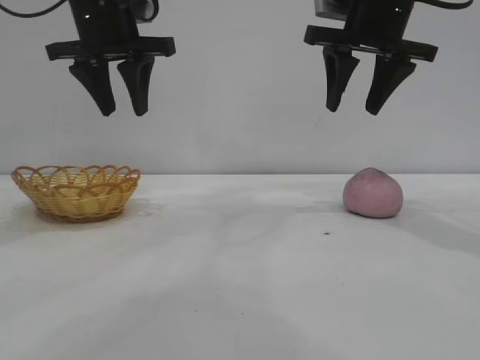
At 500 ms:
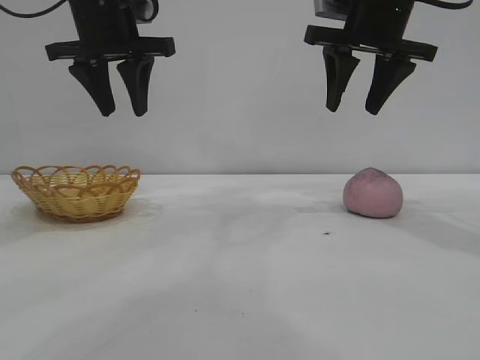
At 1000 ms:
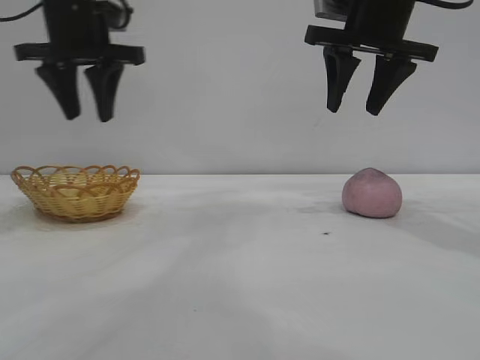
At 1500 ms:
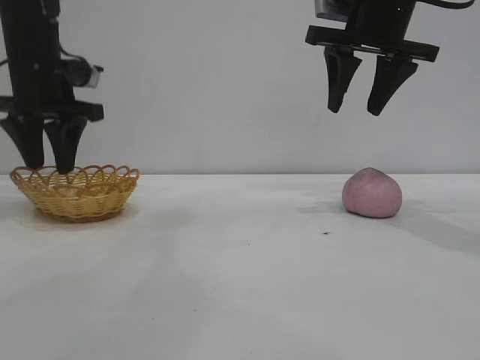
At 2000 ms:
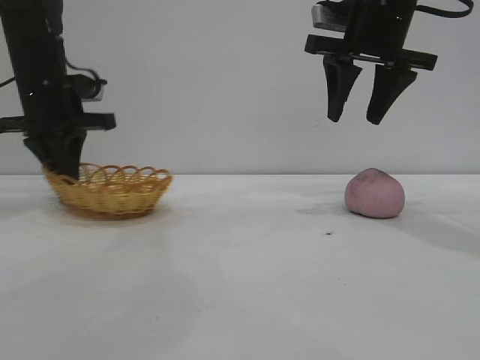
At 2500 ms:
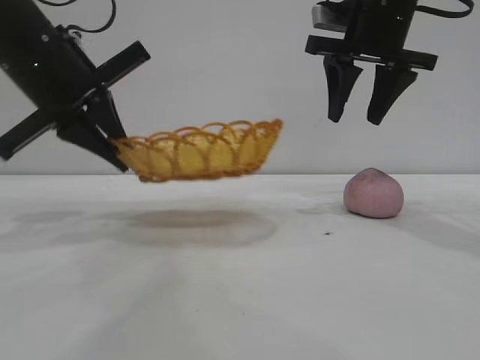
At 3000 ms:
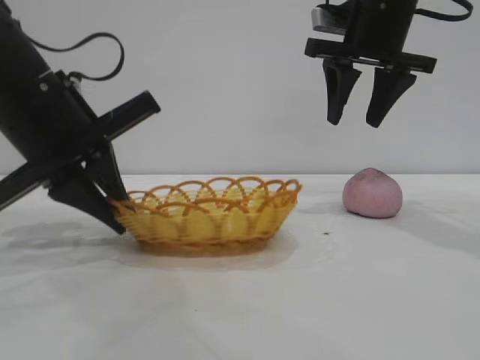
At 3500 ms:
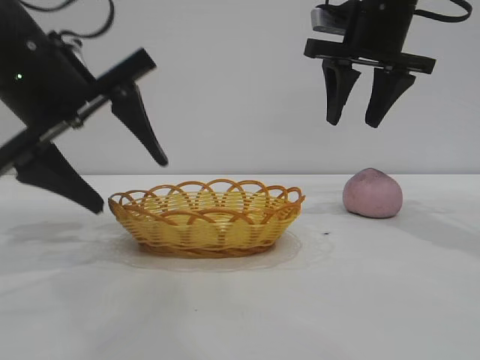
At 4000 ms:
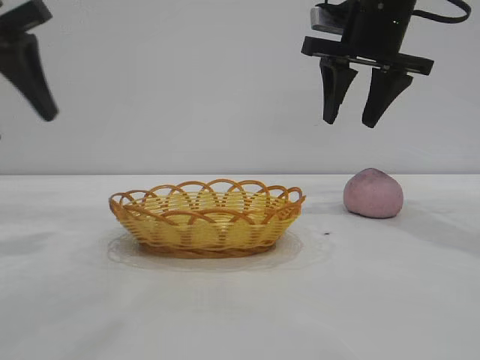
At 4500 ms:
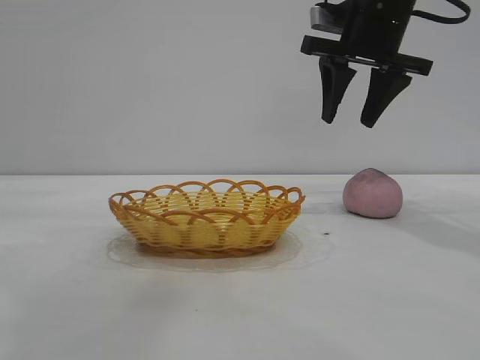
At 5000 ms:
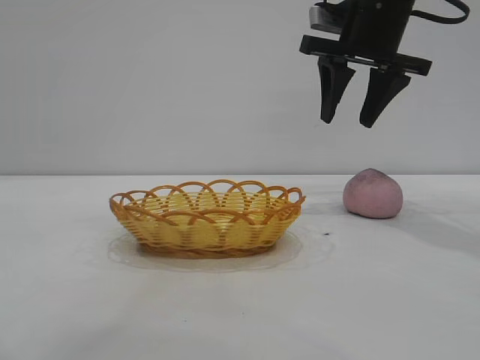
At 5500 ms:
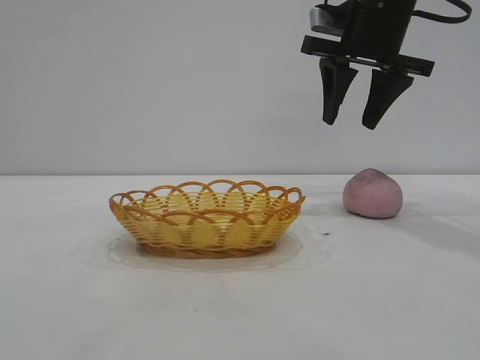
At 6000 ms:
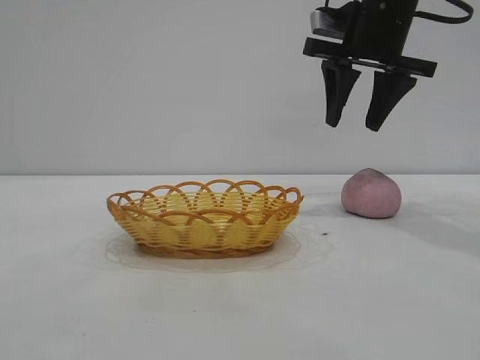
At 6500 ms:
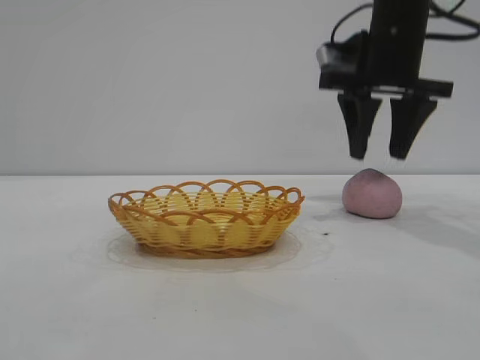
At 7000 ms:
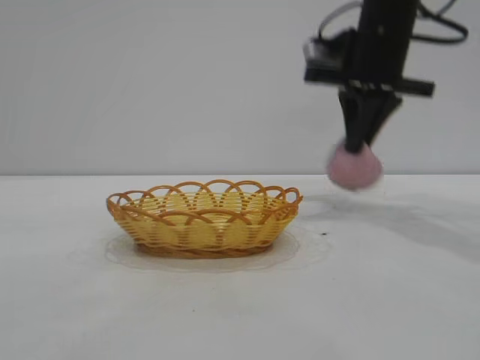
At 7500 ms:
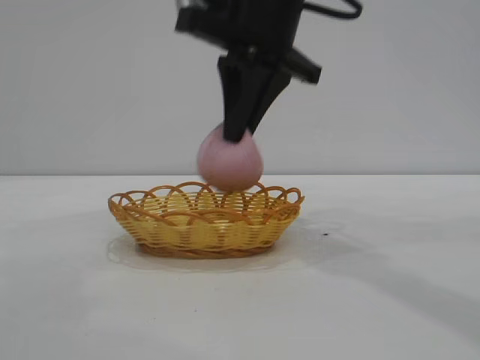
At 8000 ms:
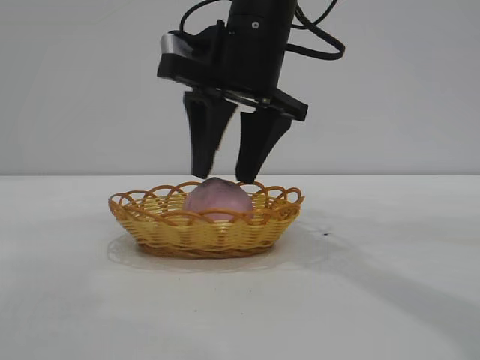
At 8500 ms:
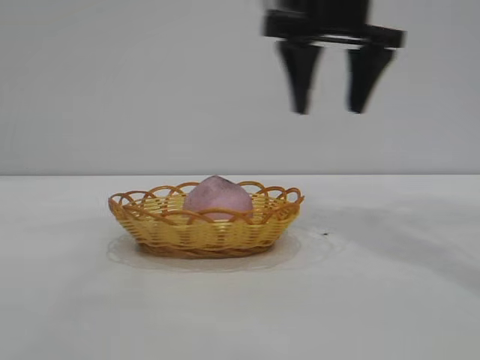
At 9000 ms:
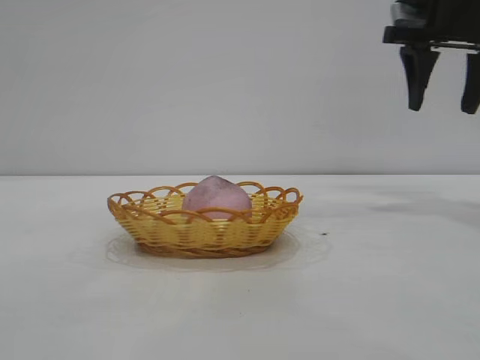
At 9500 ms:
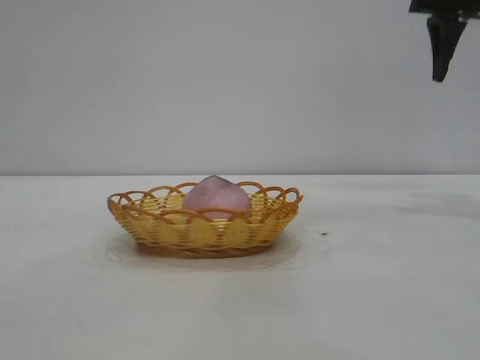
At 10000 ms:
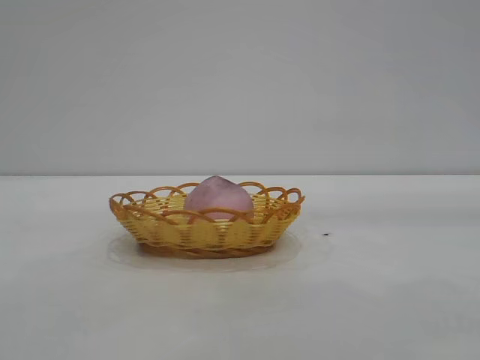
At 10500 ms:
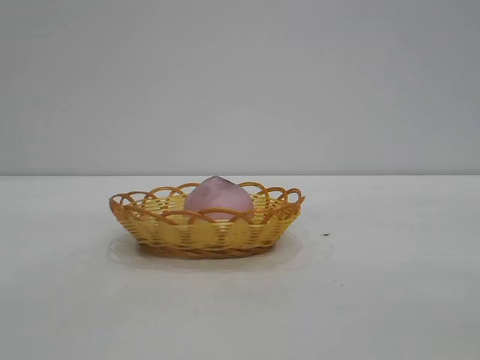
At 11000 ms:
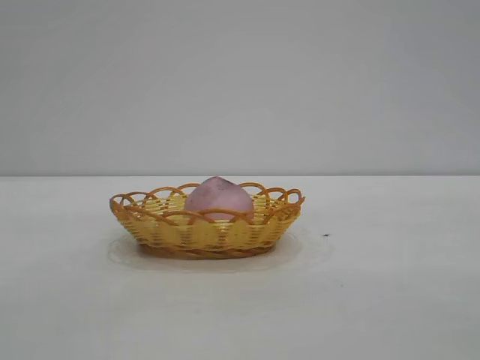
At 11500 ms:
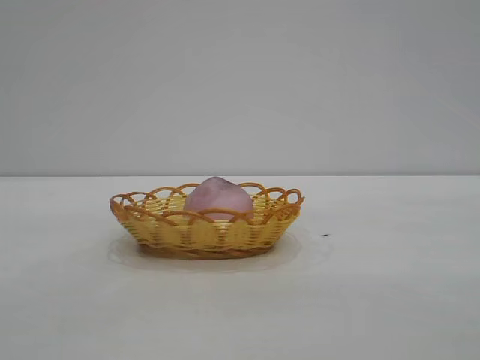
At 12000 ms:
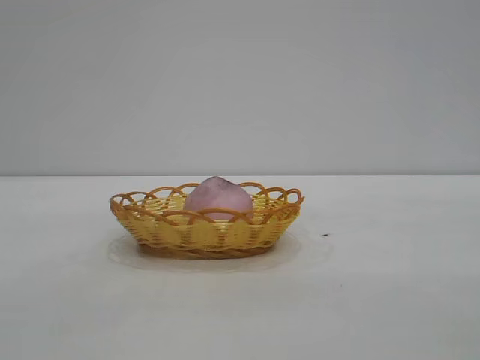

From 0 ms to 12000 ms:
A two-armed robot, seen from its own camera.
Task of the whole recording: pick up the peach and put it into the basket.
Step, from 0 ms to 3500 ms: Move the basket to the center of view.
Step, from 4000 ms to 6500 ms: Pick up the peach.
Step, from 7500 ms to 8000 ms: place the peach into the basket.

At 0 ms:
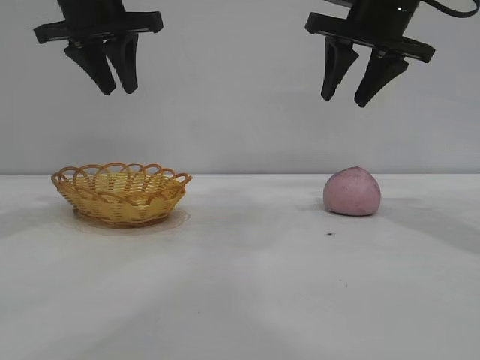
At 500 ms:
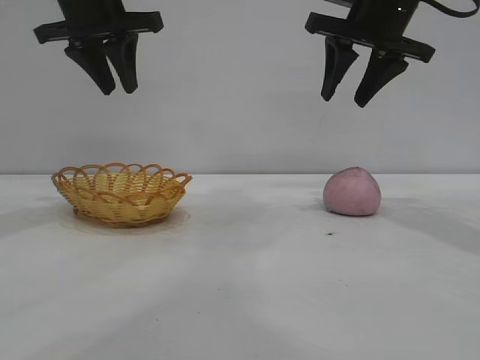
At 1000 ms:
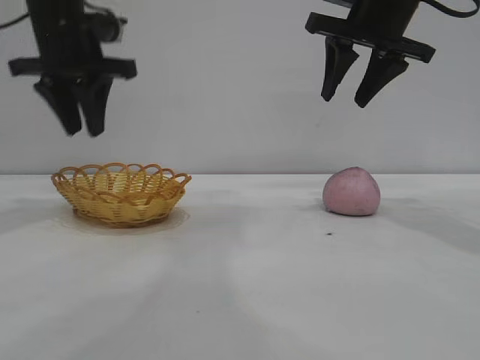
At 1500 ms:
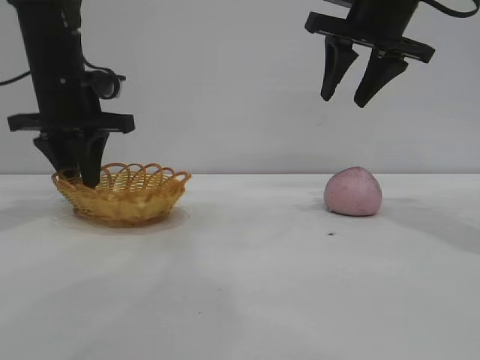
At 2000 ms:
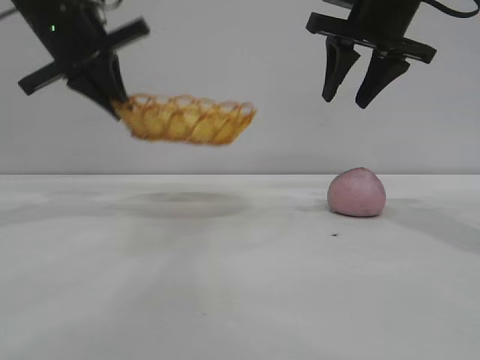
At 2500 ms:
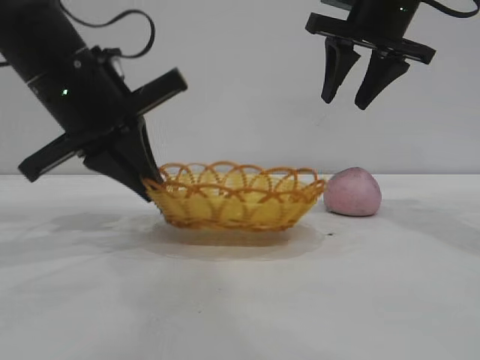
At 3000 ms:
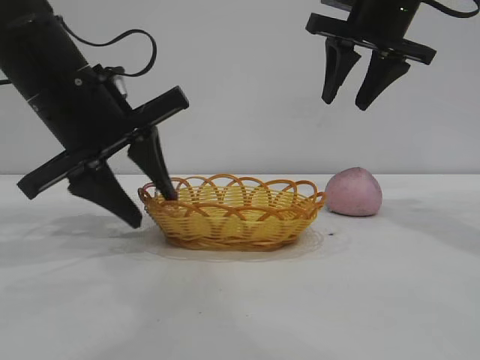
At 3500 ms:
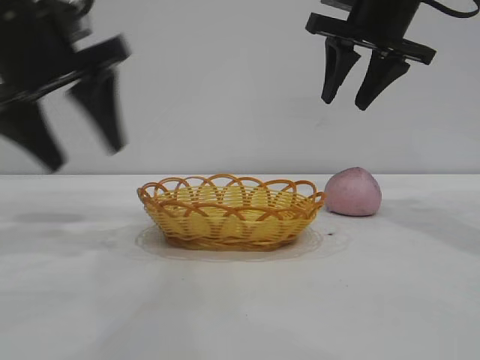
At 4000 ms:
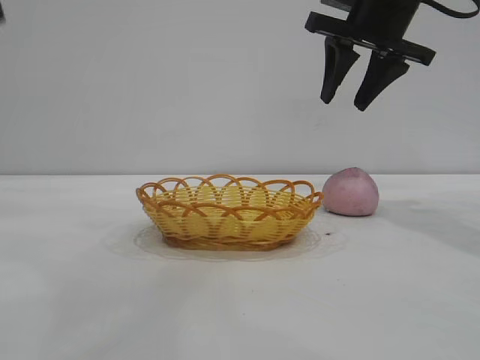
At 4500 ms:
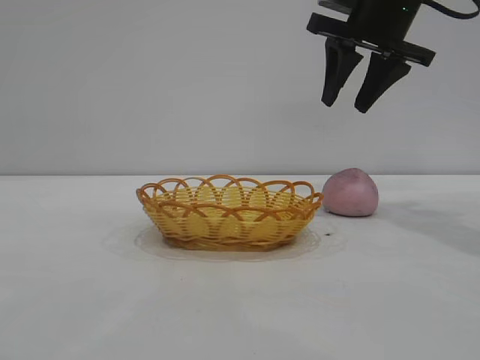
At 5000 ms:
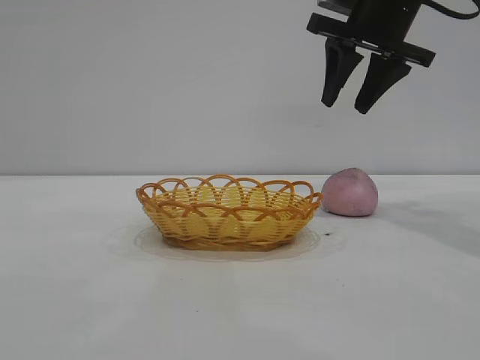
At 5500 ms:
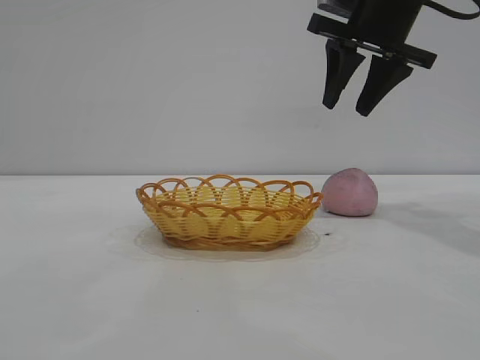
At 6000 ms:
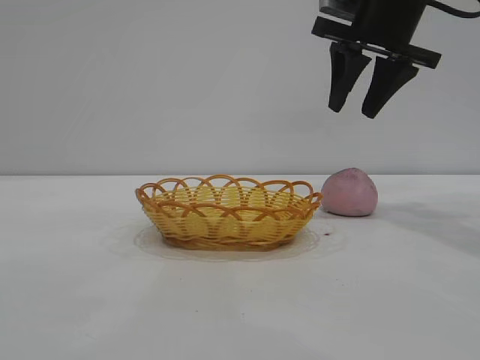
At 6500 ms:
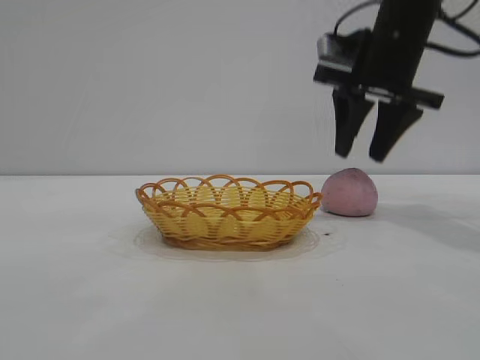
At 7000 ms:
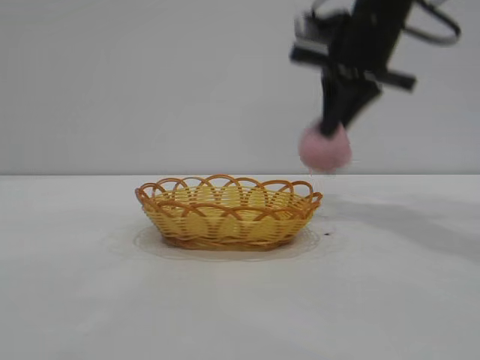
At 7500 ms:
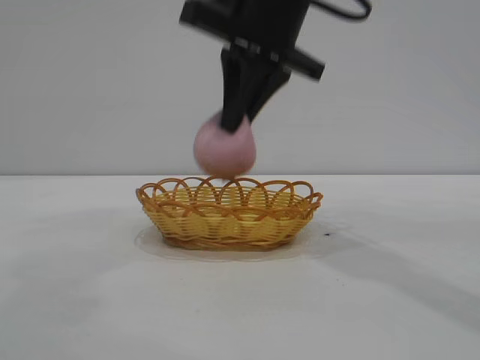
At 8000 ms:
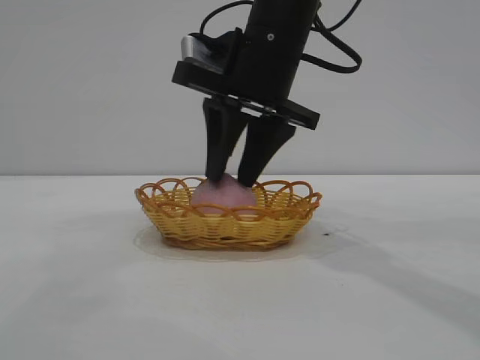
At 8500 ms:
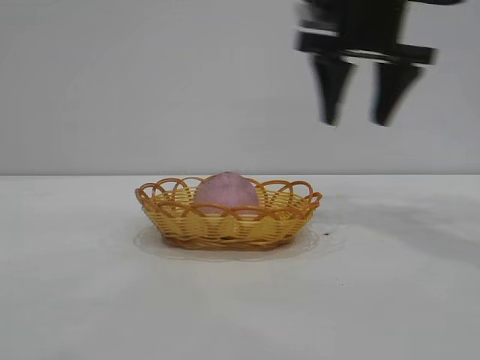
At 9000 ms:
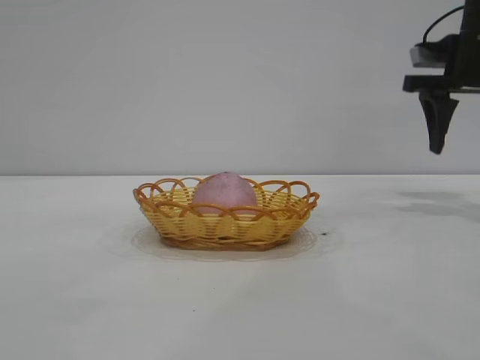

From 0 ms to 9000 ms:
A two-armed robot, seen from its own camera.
Task of the whole recording: pick up the peach and put it into the basket.
Step, from 0 ms to 3000 ms: Move the basket to the center of view.
Step, from 3500 ms to 7000 ms: Pick up the peach.
Step, from 7500 ms to 8000 ms: place the peach into the basket.
